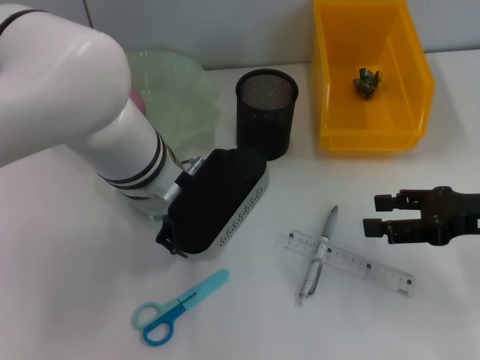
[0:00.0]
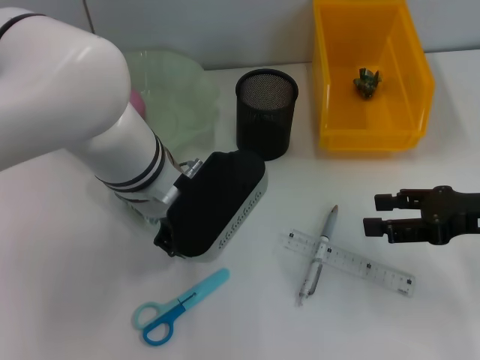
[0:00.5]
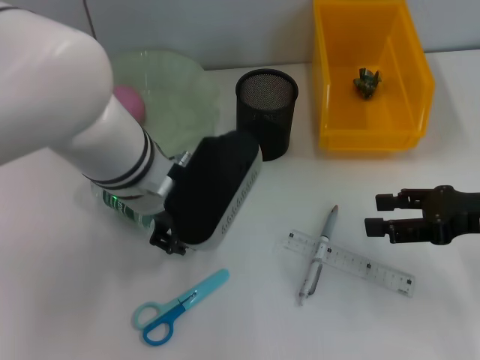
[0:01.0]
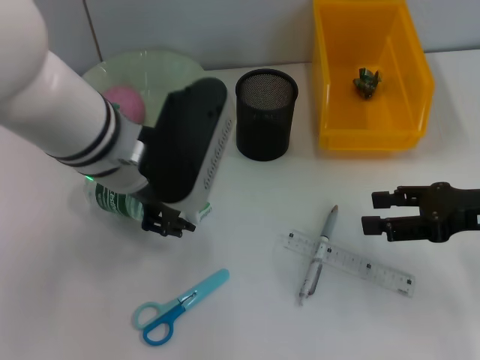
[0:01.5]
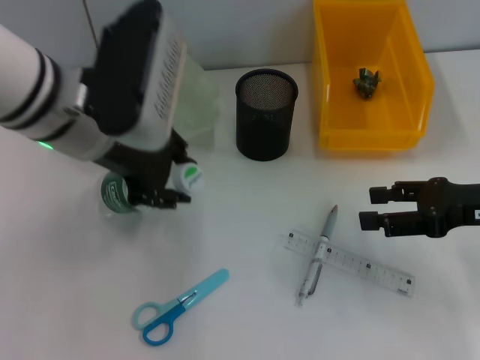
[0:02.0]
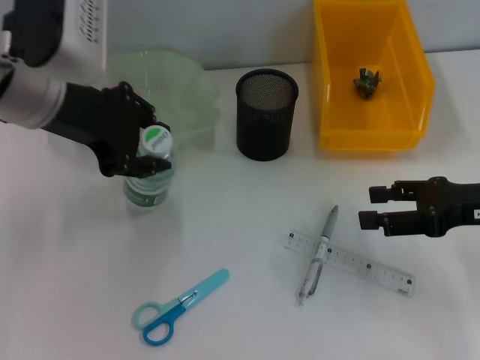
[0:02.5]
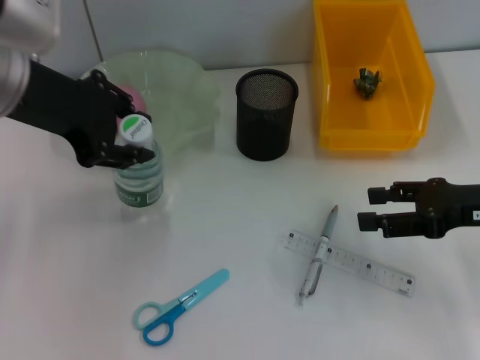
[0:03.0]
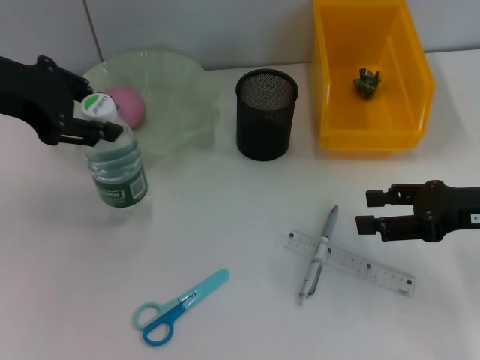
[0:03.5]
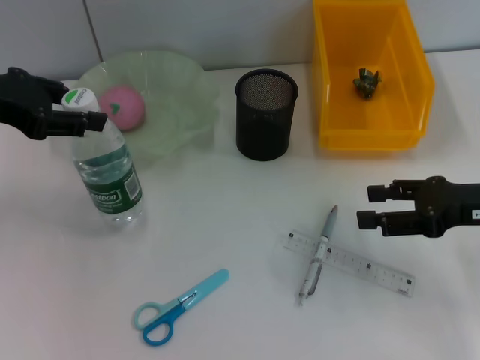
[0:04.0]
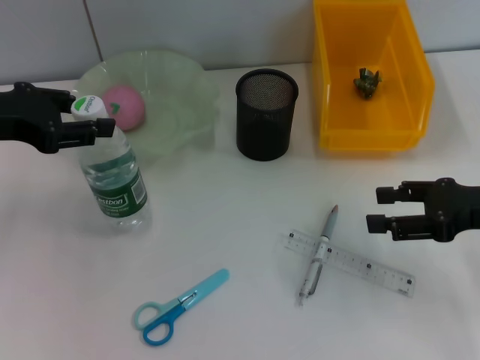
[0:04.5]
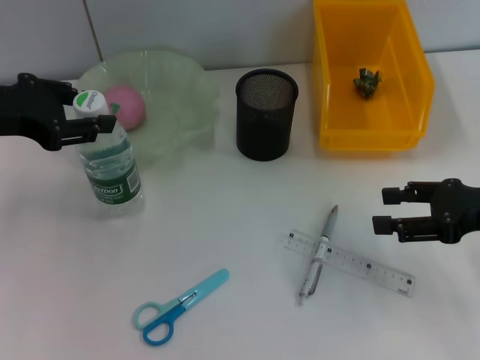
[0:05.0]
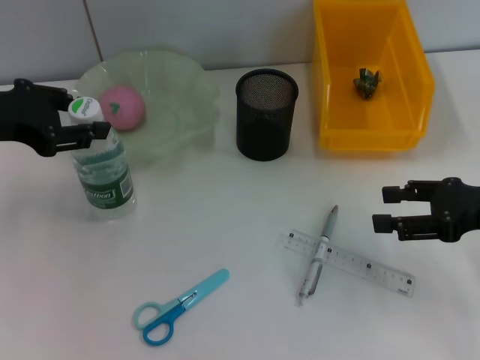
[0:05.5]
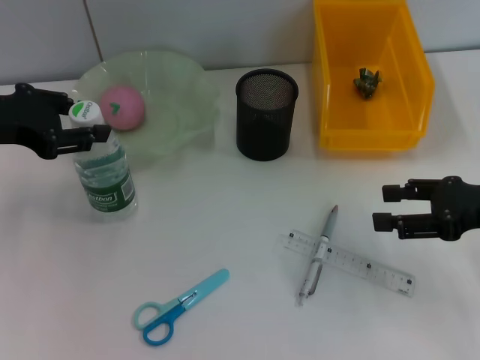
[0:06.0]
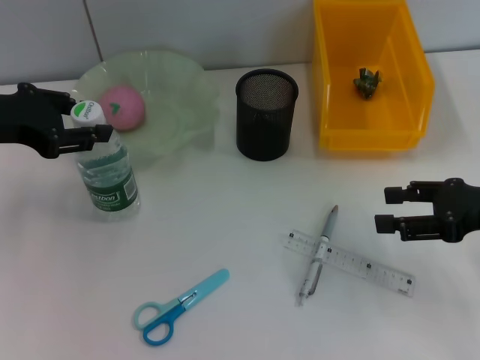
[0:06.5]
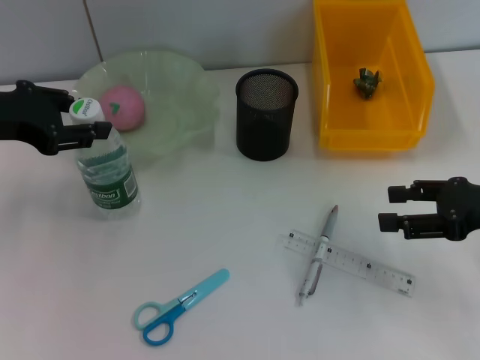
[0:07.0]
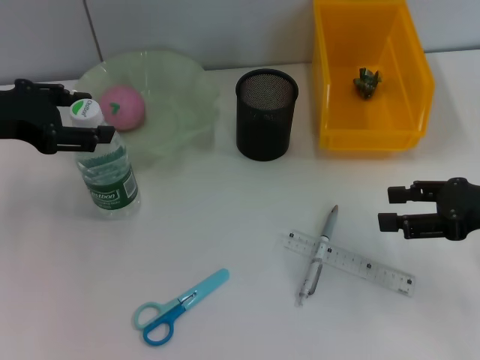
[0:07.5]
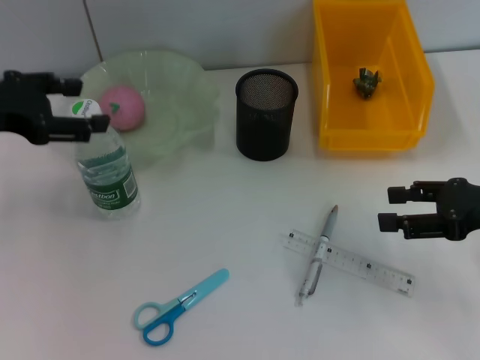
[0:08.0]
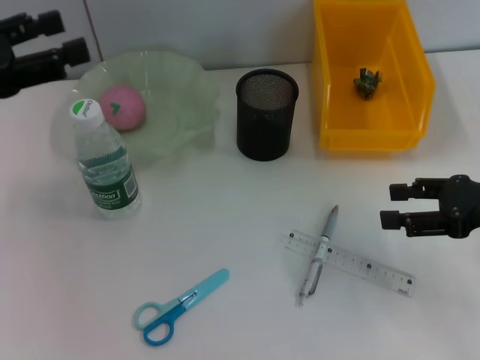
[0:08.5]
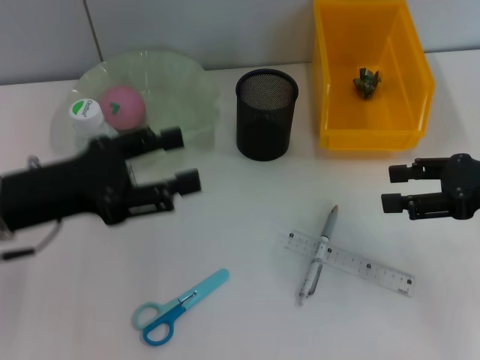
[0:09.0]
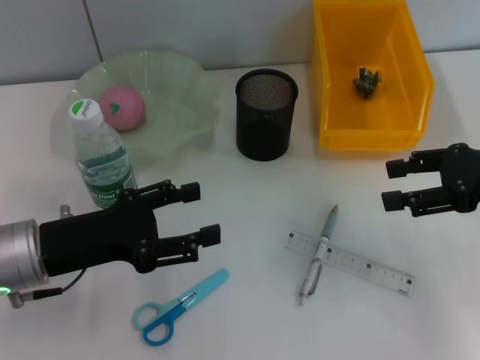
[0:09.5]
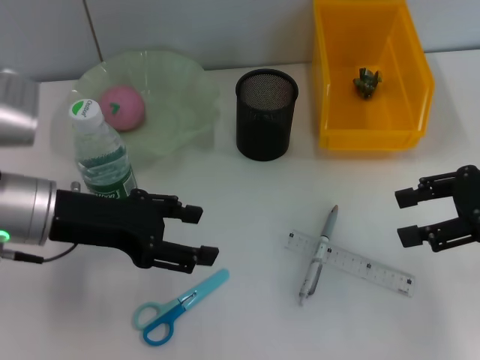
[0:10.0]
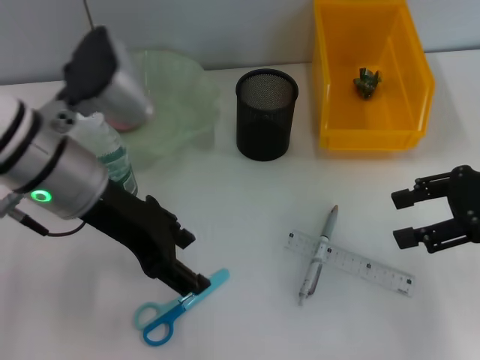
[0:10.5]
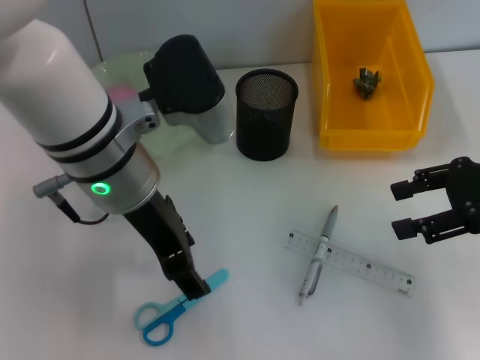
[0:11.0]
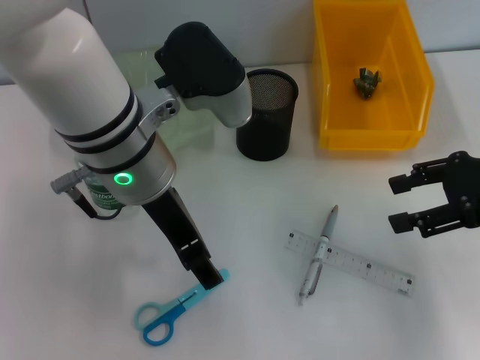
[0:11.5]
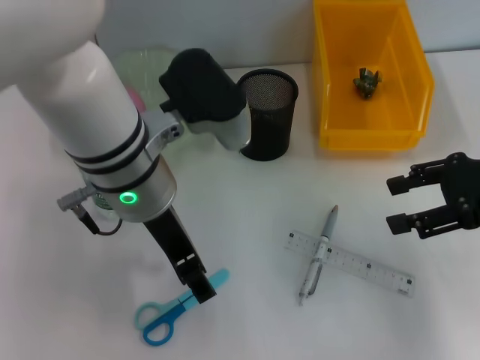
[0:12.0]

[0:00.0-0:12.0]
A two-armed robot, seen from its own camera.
Step, 0:00.5 to 0:07.5: Place the water bottle on the table with the left hand.
0:00.0 to 0:02.0: The left gripper is displaced upward and to the left by roughly 10 cm.
0:02.0 to 0:04.0: The left gripper moves to the left, approximately 15 cm.
0:04.0 to 0:06.0: The grippers make only small movements.
0:06.0 to 0:08.0: The left gripper opens its fingers.
0:08.0 to 0:10.0: The left gripper shifts some 10 cm to the right and downward.
0:10.0 to 0:12.0: The left gripper heads to the right, covering some 15 cm.

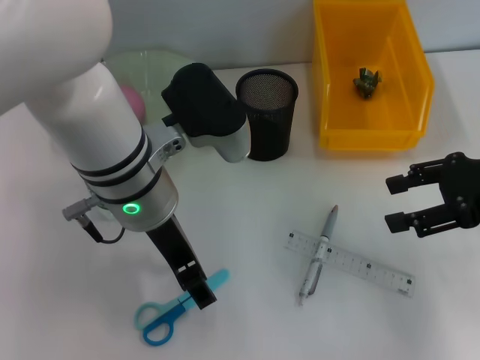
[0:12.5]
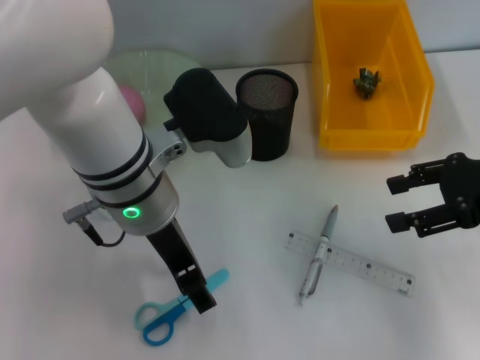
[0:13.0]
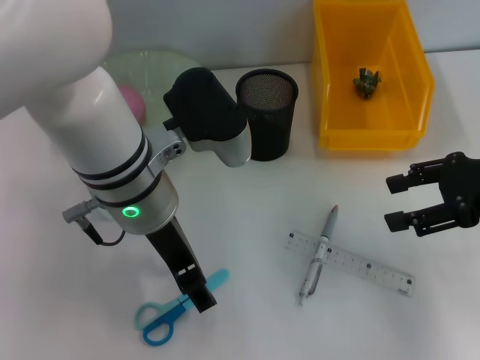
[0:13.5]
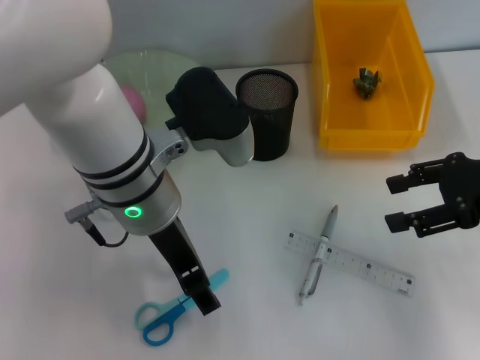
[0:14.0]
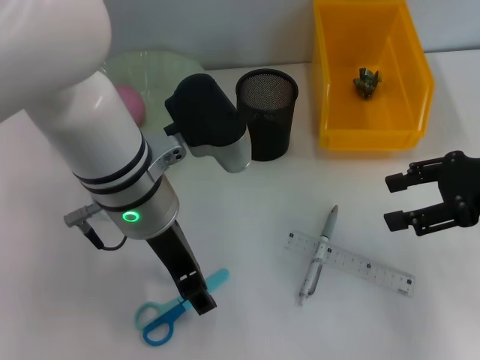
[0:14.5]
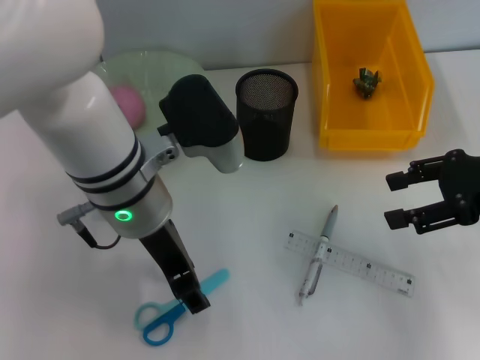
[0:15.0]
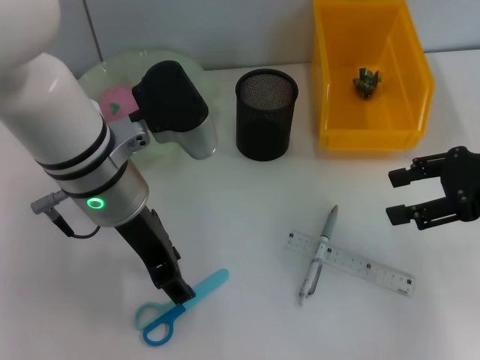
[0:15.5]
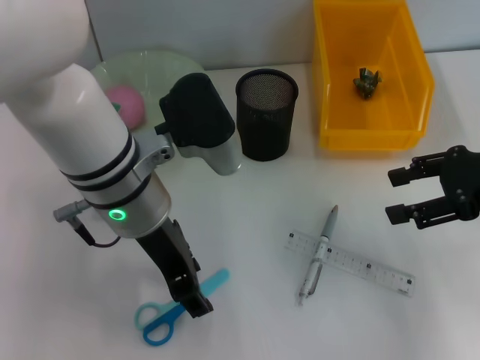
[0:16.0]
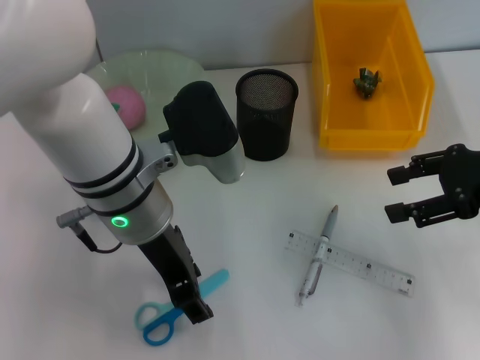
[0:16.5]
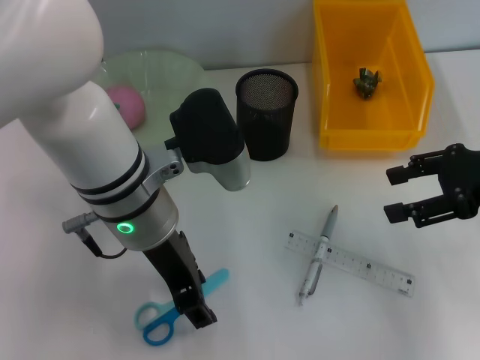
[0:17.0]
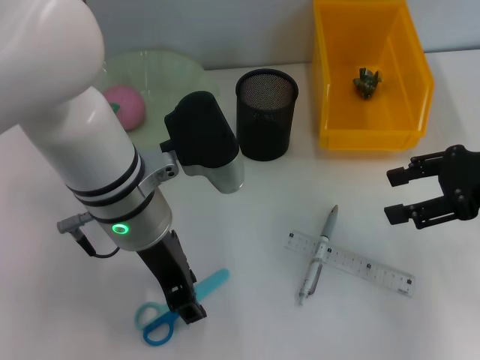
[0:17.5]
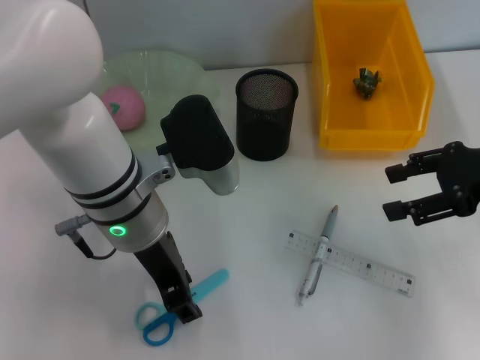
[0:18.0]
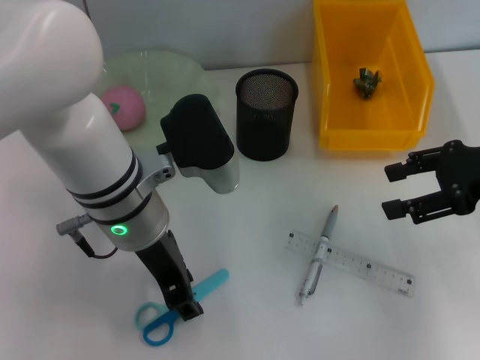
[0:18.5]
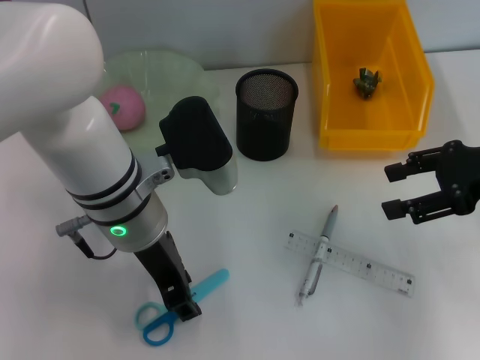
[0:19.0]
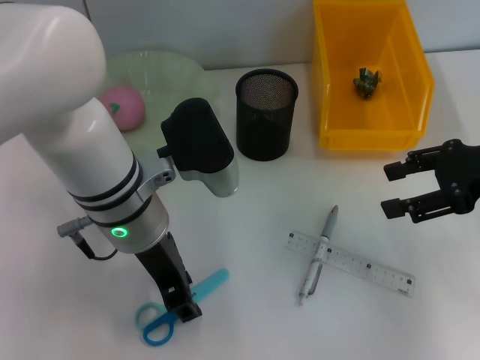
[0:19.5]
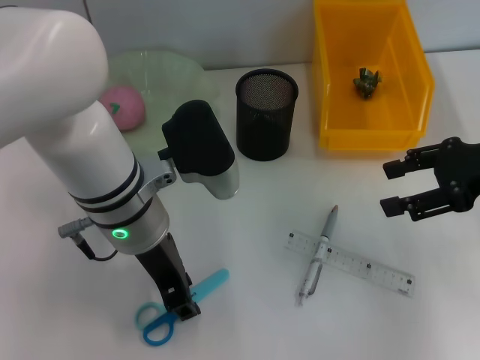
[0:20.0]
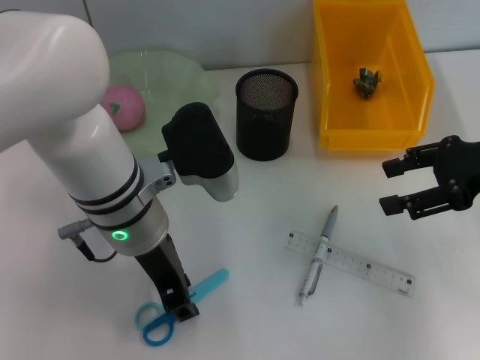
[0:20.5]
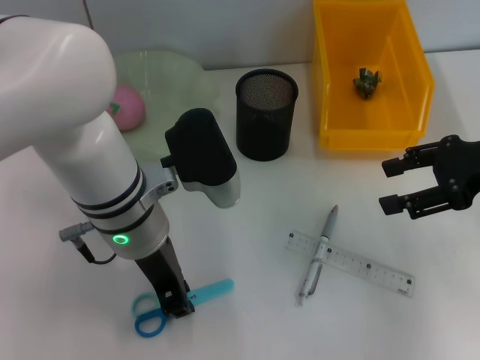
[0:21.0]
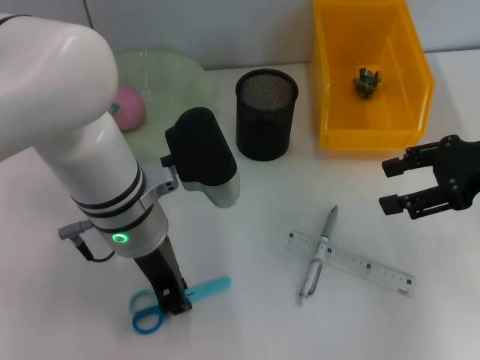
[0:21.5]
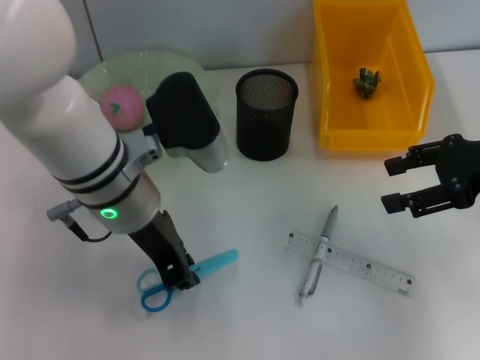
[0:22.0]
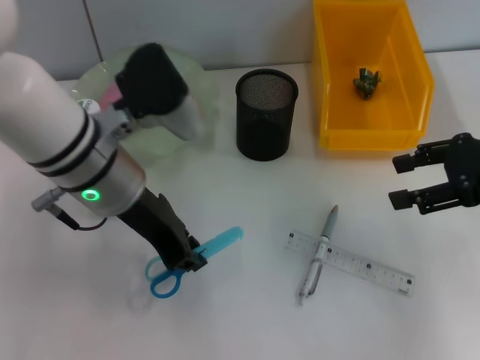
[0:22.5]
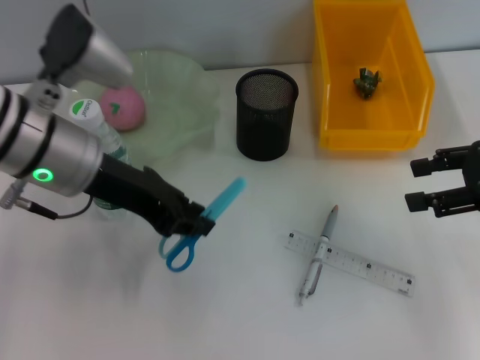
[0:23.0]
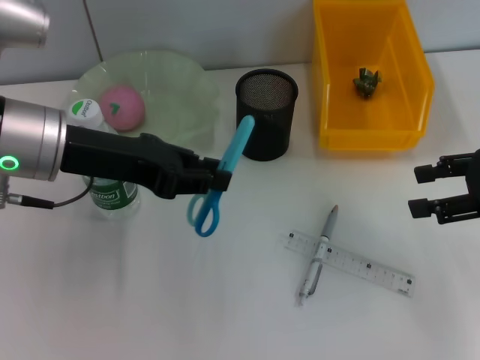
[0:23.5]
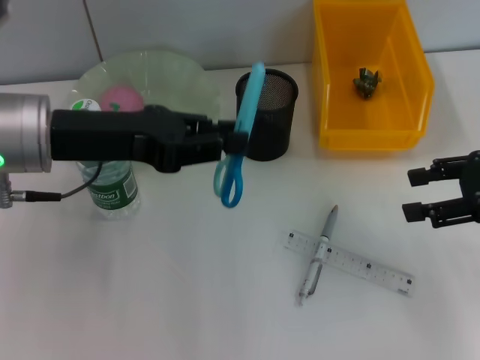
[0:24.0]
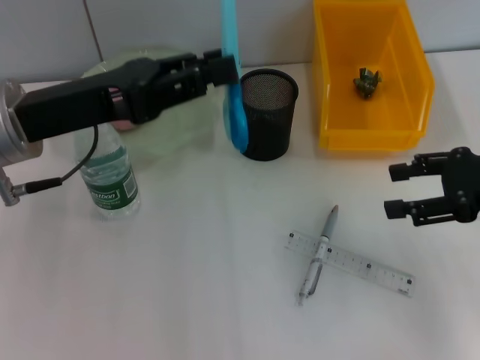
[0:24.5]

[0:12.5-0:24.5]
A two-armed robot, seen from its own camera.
Step, 0:12.5 to 0:21.0: Grab the blue scissors with the left hand.
0:12.5 to 0:14.5: Both grippers stay about where they are.
0:14.5 to 0:18.5: The grippers stay close to where they were, moving slightly.
0:18.5 to 0:20.5: Both grippers stay about where they are.
0:22.5 to 0:24.5: The left gripper is displaced to the left by approximately 10 cm.

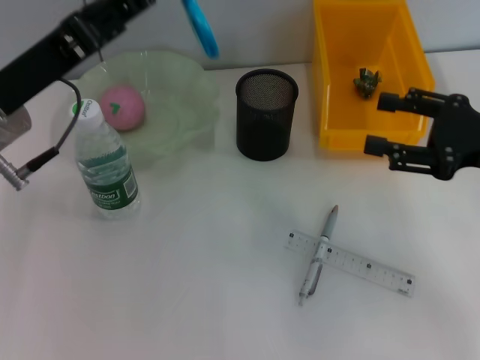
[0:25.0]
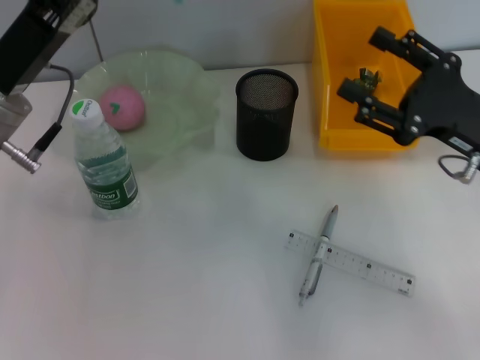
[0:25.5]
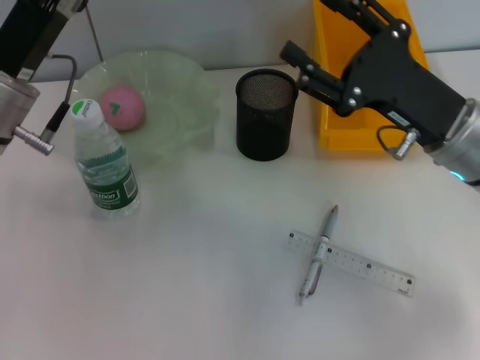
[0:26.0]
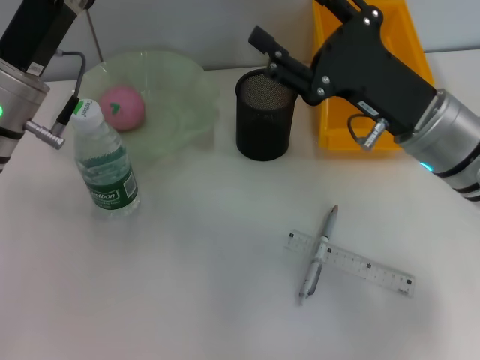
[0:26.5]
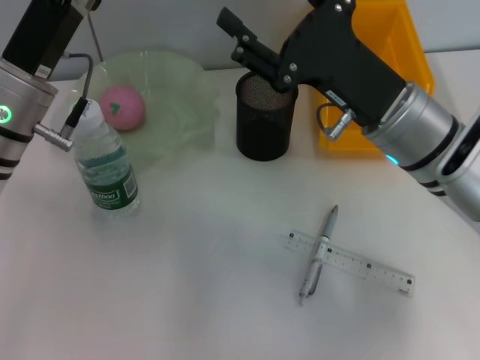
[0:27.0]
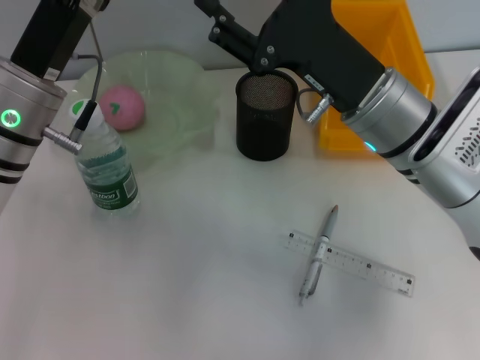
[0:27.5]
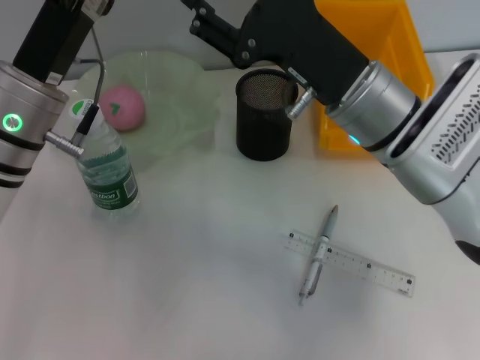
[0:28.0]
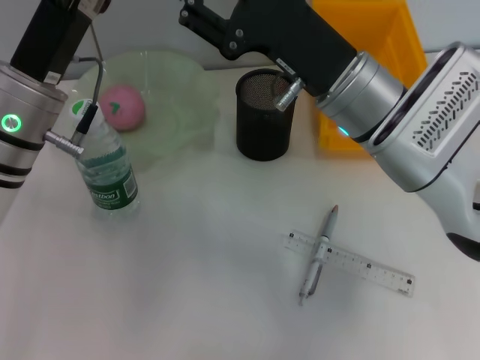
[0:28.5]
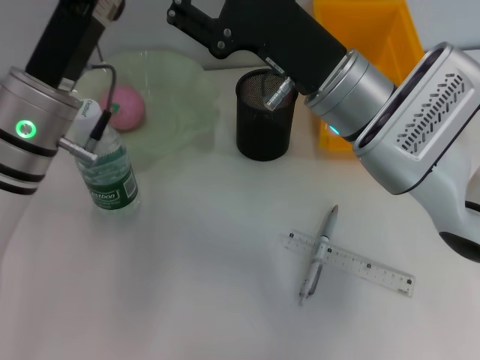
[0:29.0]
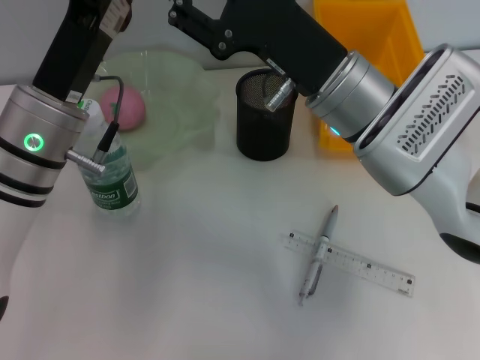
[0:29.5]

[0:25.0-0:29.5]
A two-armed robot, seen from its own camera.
0:25.0 to 0:27.0: The right gripper heads to the left, covering roughly 15 cm.
0:27.0 to 0:29.5: The right gripper moves approximately 5 cm.
